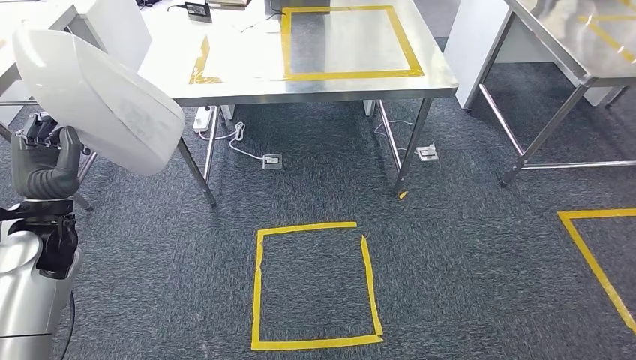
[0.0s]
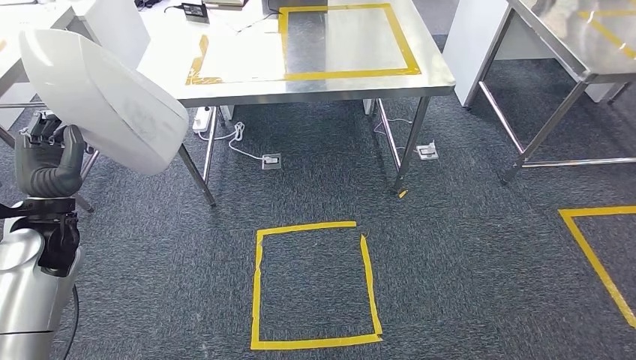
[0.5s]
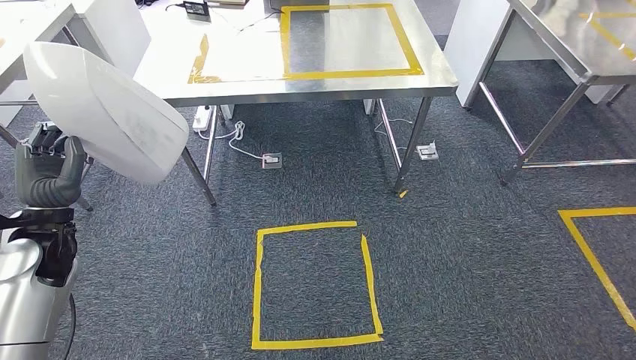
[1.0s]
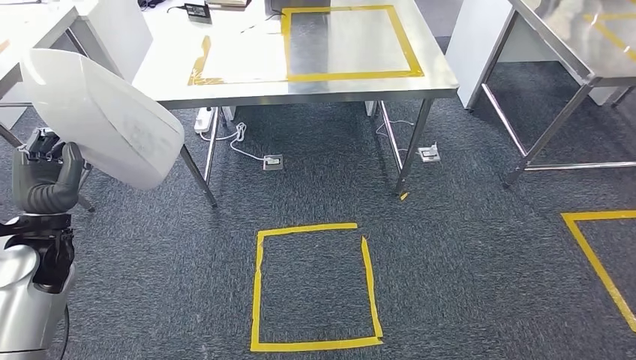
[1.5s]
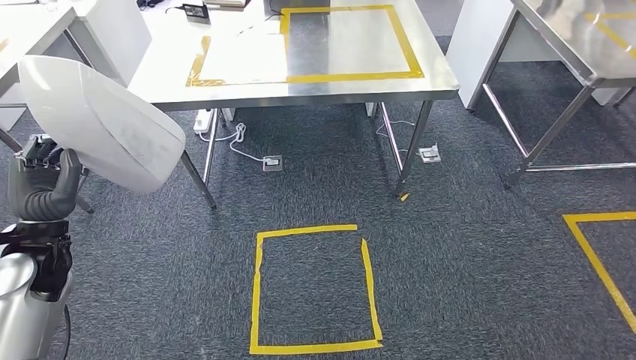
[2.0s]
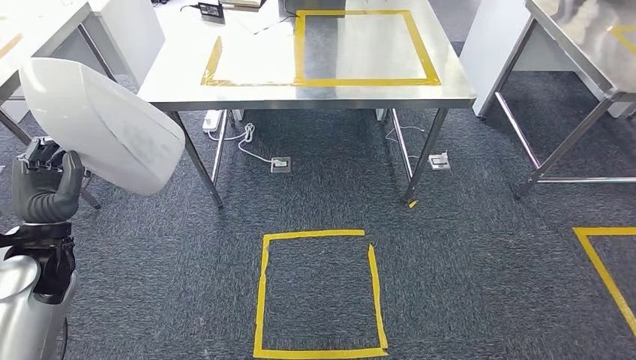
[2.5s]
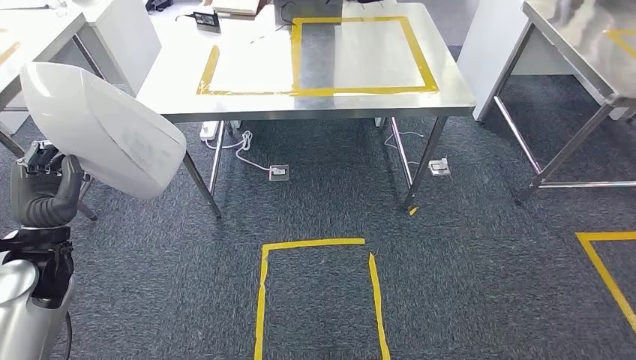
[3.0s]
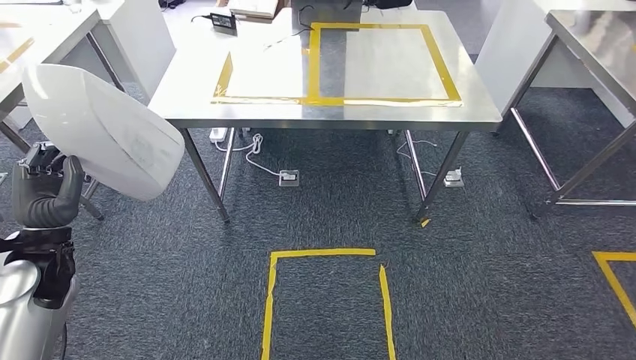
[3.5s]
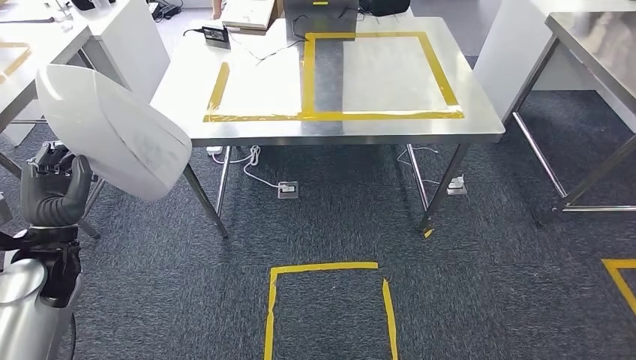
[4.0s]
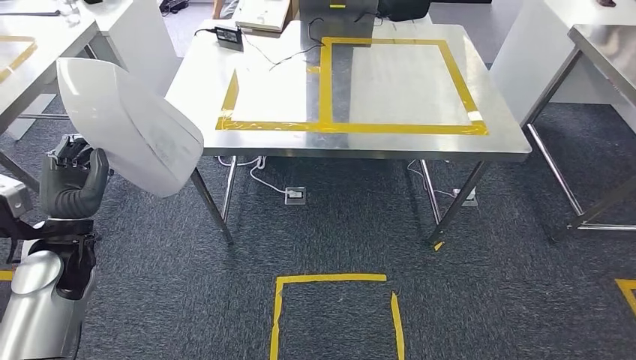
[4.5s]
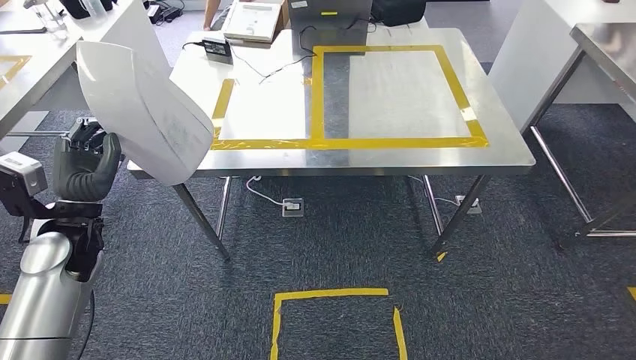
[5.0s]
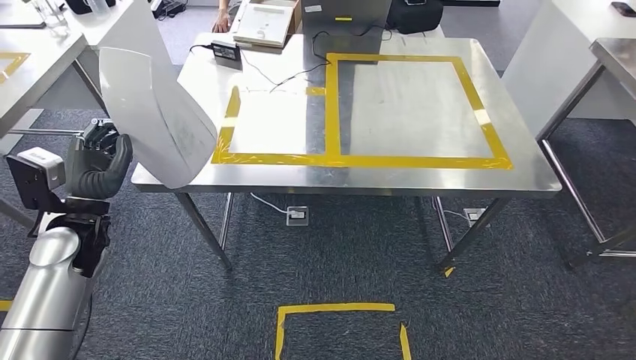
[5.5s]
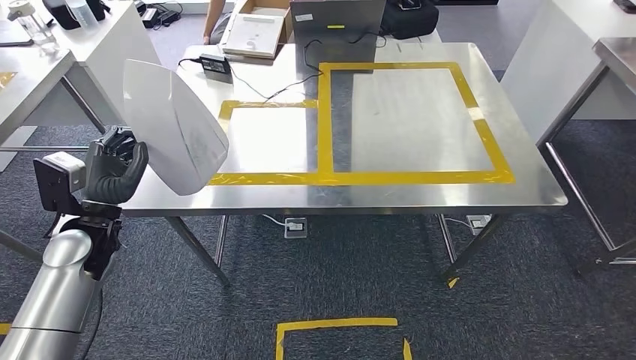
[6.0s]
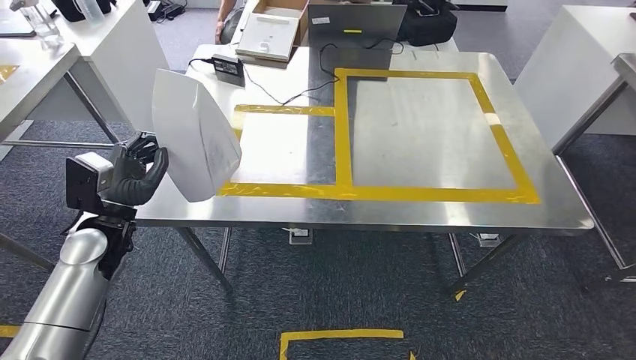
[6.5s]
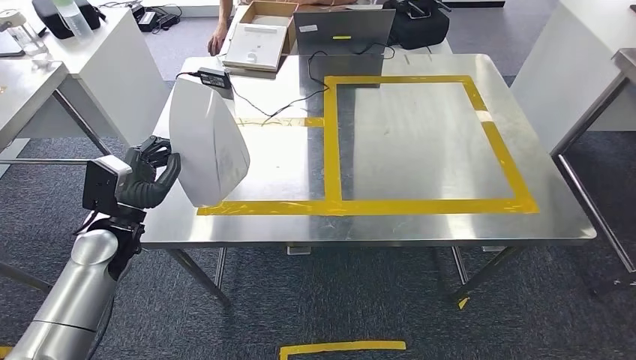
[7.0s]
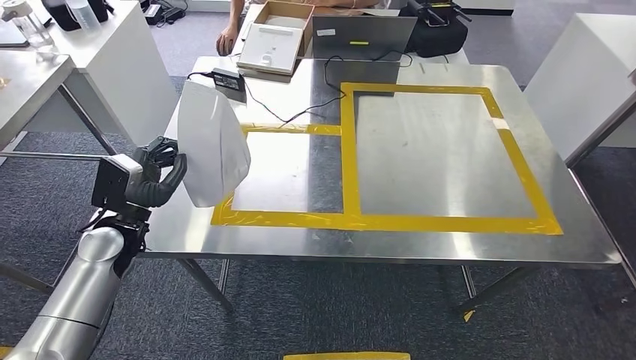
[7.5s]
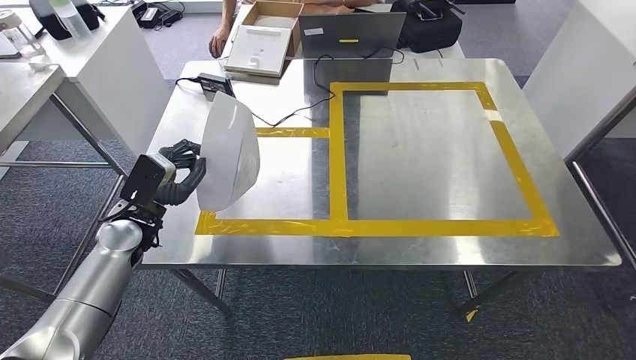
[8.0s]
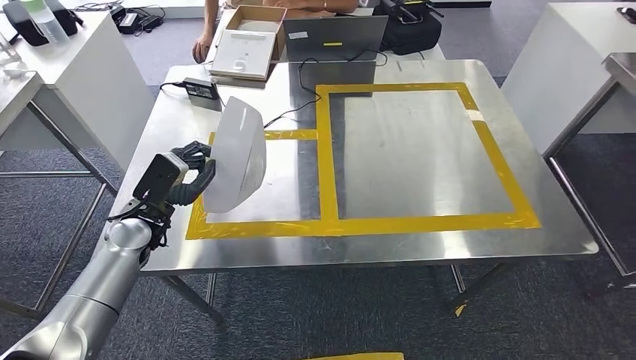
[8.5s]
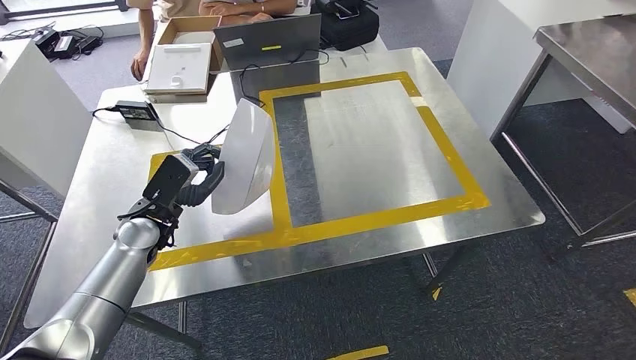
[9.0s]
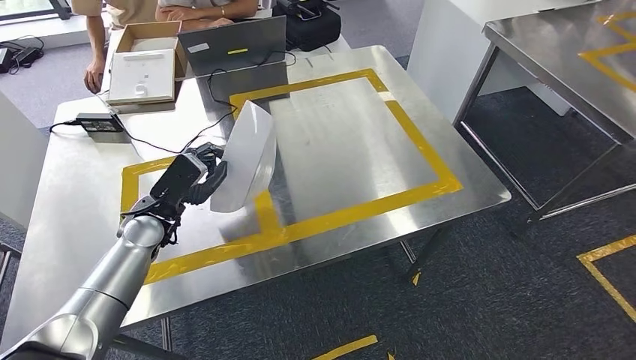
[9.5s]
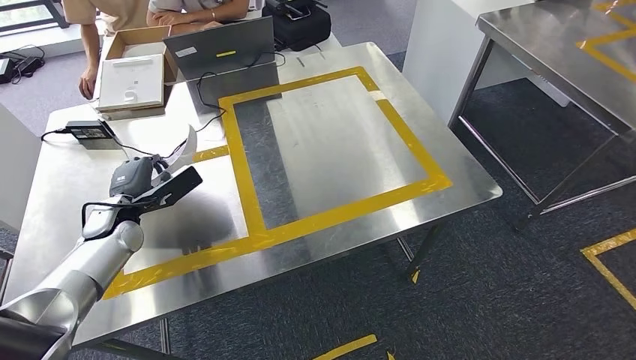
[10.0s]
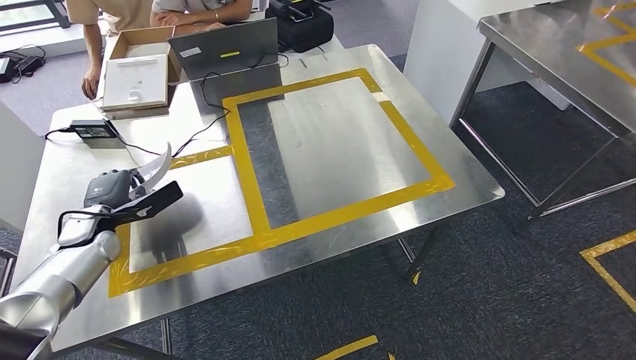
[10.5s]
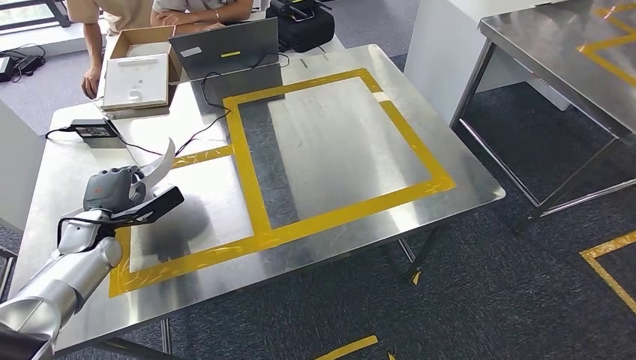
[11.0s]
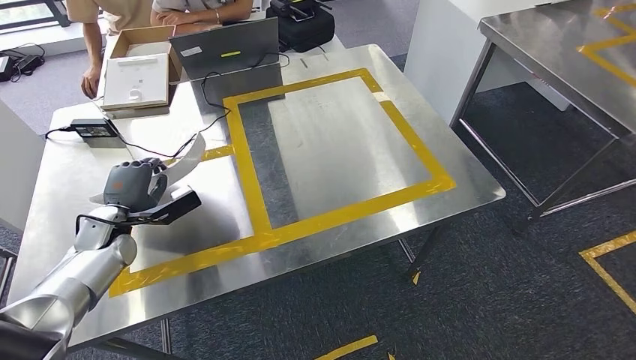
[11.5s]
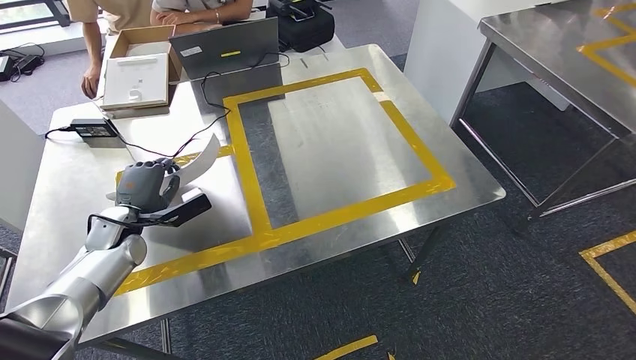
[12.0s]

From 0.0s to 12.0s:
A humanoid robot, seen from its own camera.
Step, from 0.0s to 6.5s: Move the small component to the workbench.
From 0.0s to 2.0s: The hands move only a little.
From 10.0s to 12.0s: The hands make only small movements.

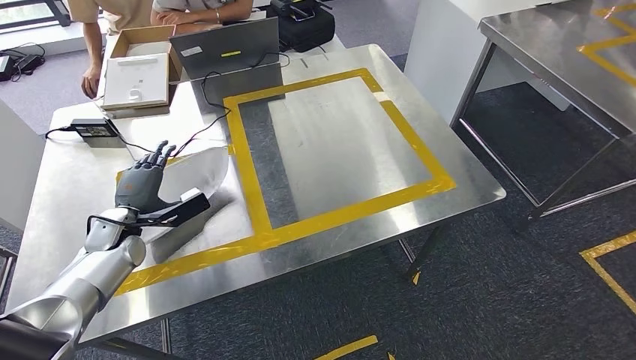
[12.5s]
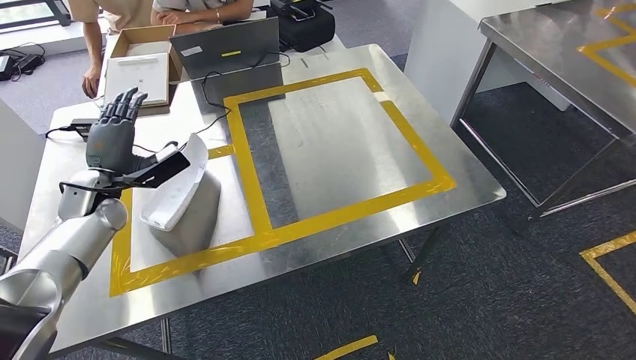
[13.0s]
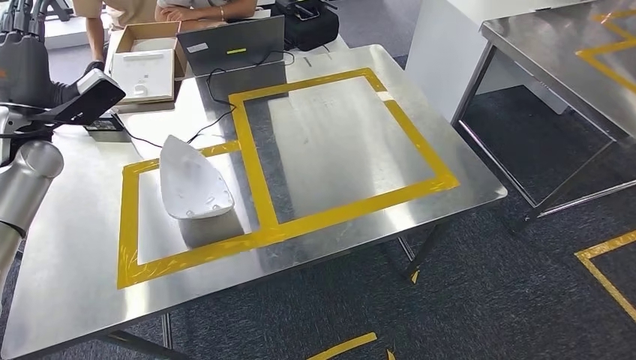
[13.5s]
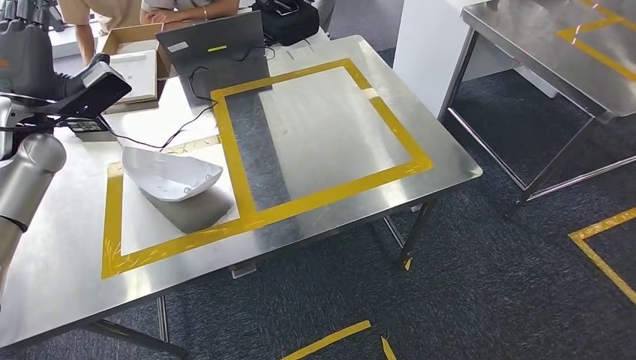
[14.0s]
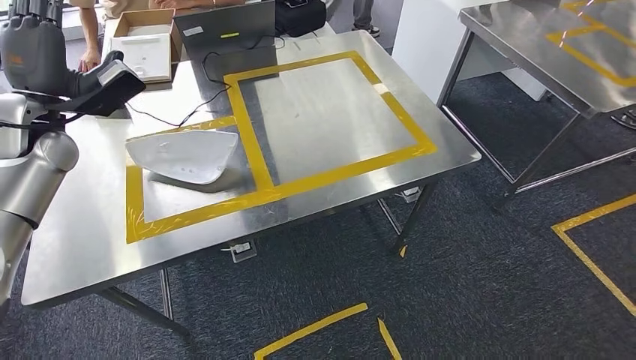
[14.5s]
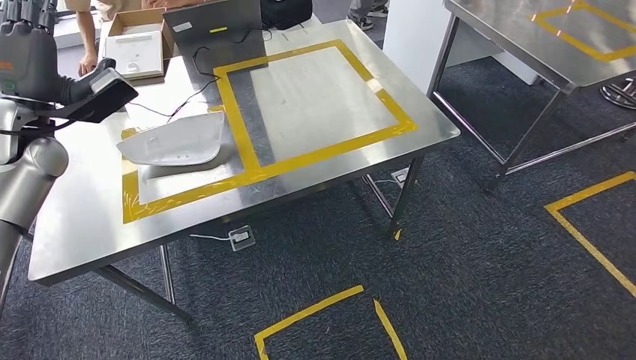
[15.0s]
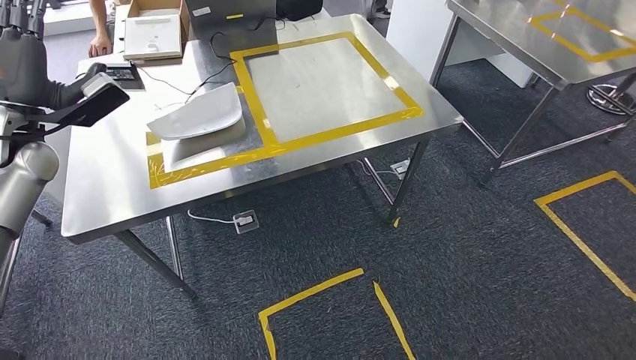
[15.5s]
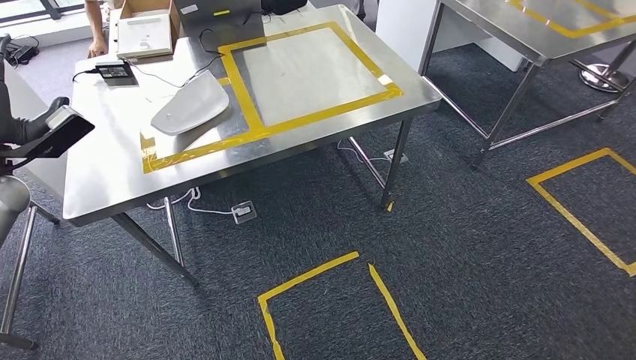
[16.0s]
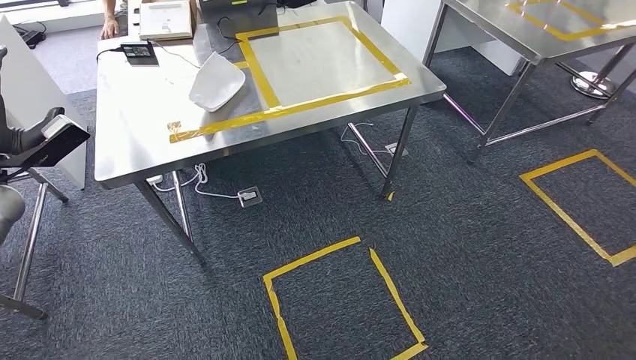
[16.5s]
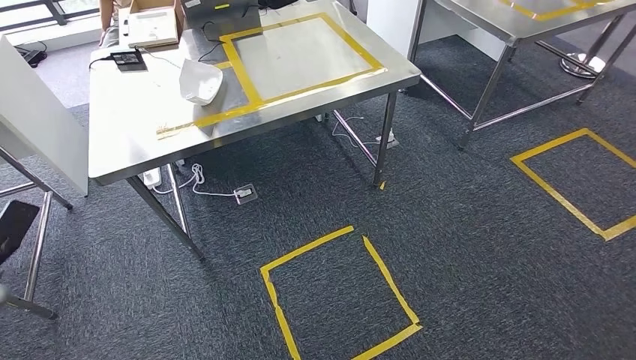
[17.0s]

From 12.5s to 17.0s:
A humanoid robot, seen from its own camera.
Step, from 13.5s to 17.0s: Return to the initial position at the workbench.
